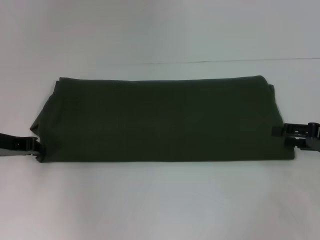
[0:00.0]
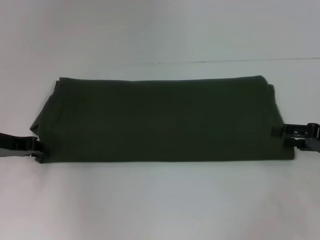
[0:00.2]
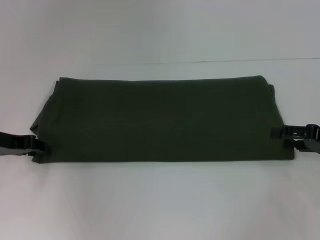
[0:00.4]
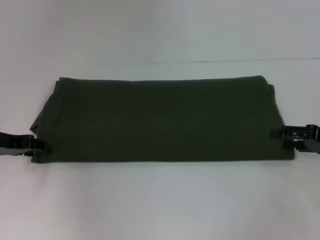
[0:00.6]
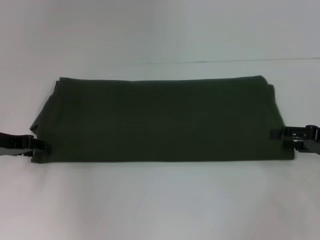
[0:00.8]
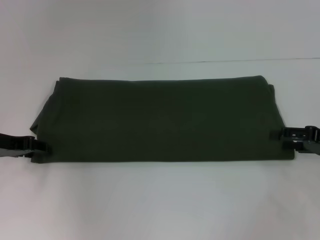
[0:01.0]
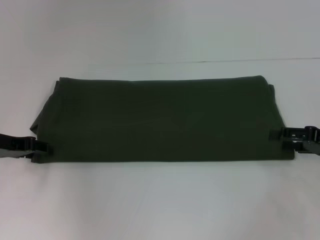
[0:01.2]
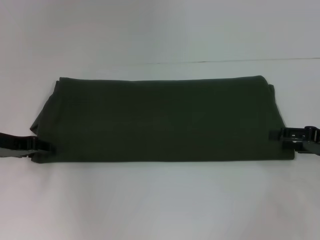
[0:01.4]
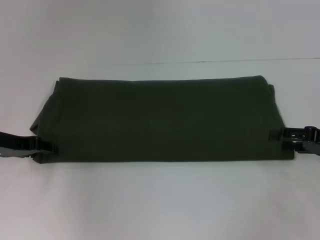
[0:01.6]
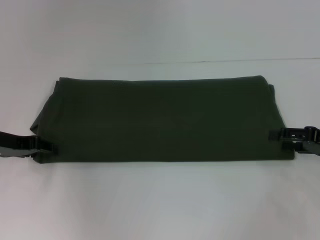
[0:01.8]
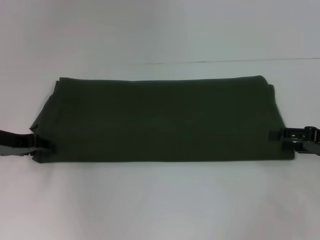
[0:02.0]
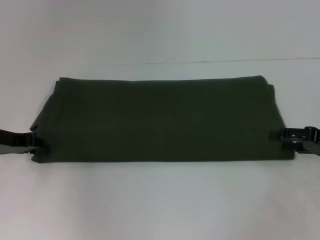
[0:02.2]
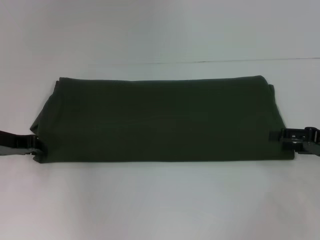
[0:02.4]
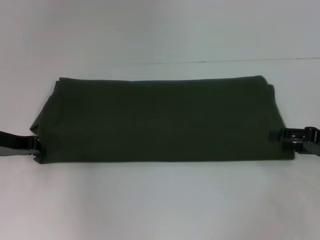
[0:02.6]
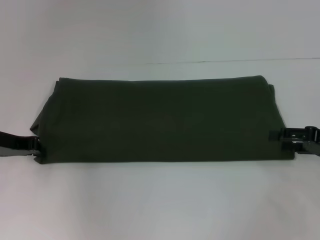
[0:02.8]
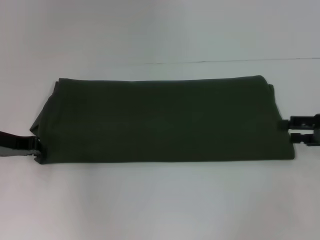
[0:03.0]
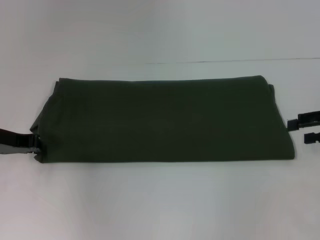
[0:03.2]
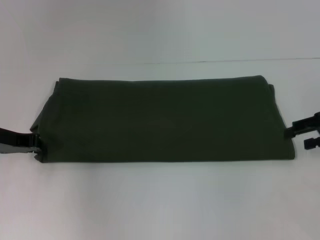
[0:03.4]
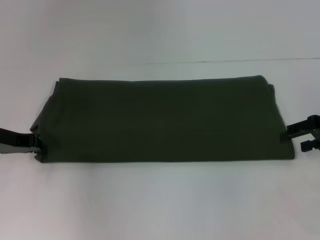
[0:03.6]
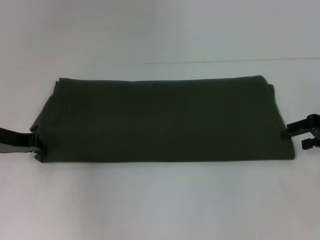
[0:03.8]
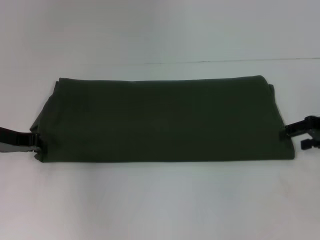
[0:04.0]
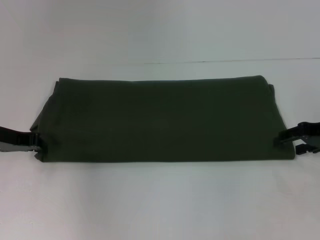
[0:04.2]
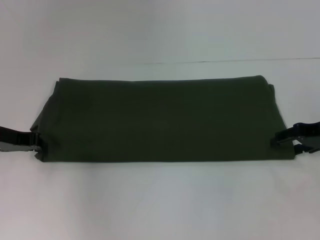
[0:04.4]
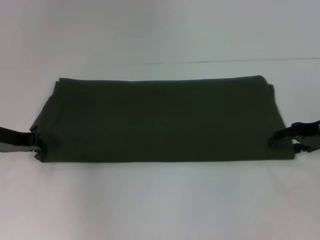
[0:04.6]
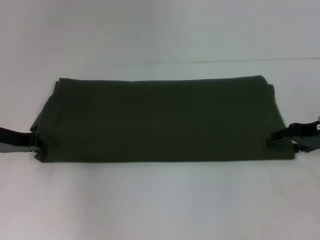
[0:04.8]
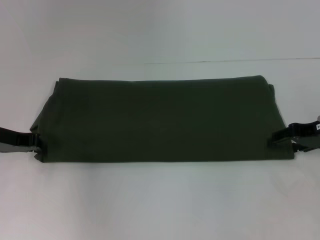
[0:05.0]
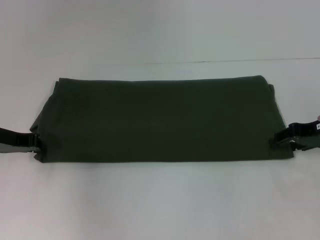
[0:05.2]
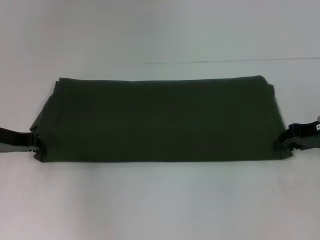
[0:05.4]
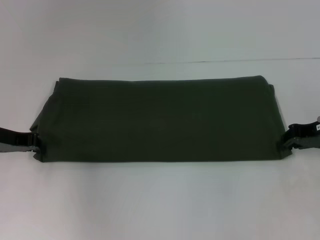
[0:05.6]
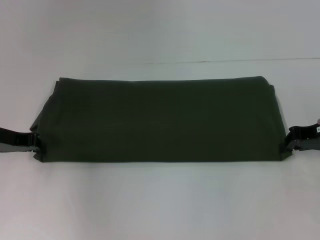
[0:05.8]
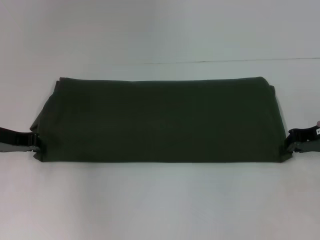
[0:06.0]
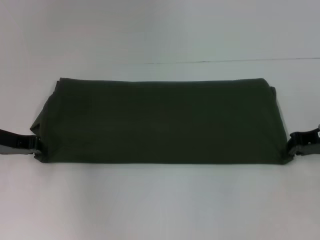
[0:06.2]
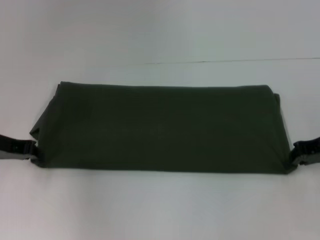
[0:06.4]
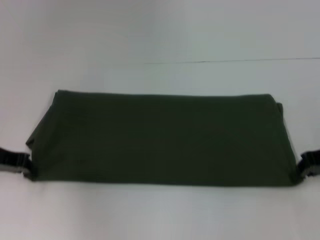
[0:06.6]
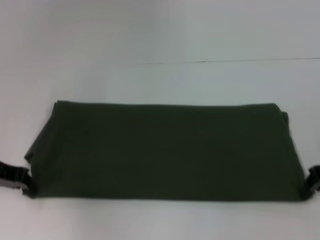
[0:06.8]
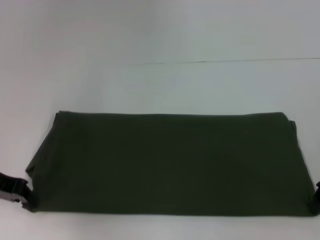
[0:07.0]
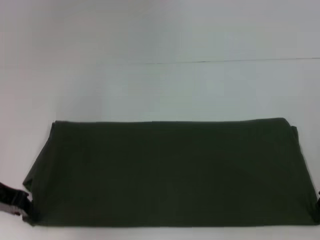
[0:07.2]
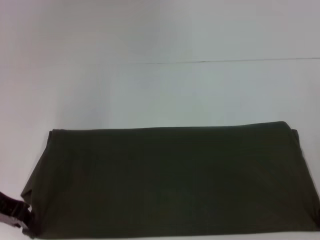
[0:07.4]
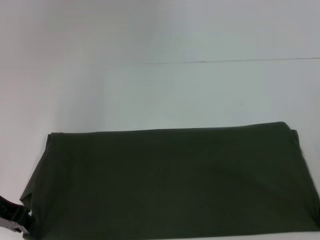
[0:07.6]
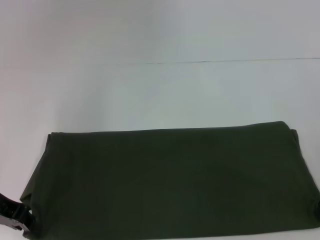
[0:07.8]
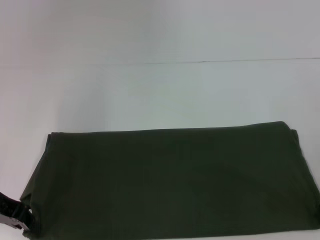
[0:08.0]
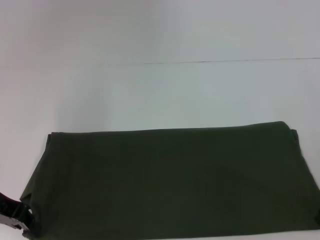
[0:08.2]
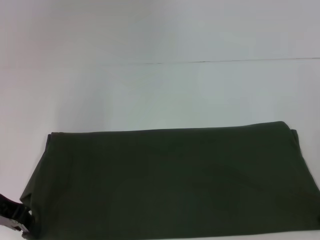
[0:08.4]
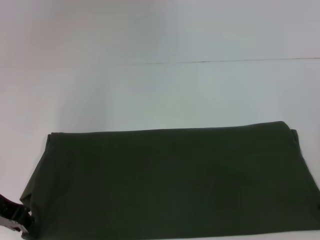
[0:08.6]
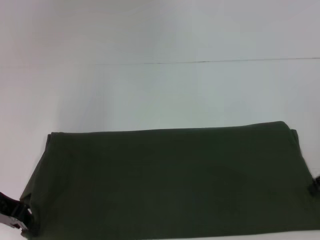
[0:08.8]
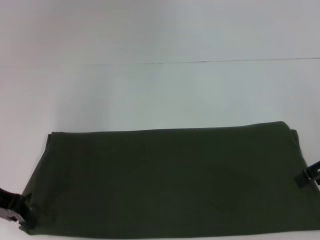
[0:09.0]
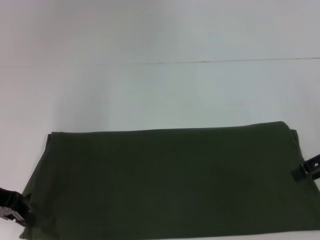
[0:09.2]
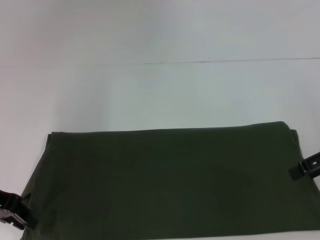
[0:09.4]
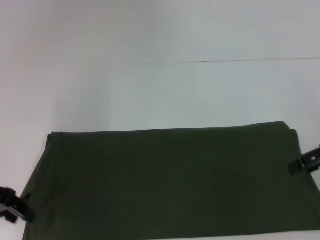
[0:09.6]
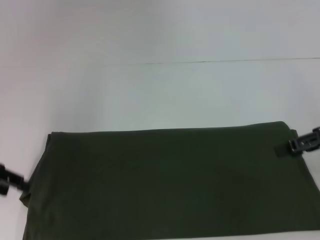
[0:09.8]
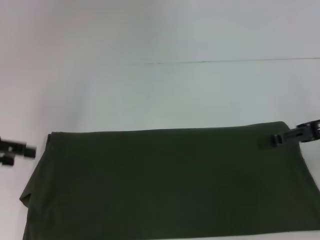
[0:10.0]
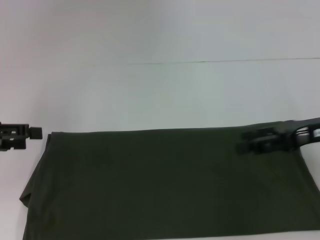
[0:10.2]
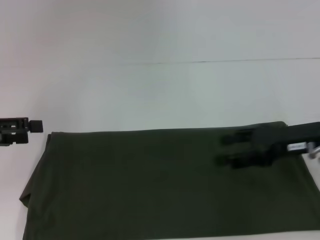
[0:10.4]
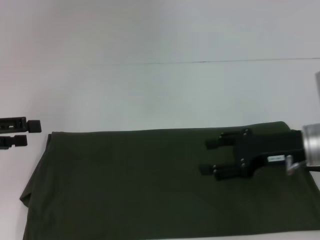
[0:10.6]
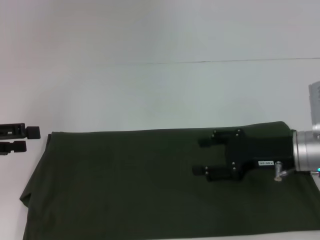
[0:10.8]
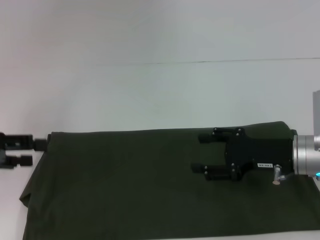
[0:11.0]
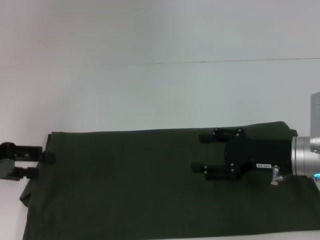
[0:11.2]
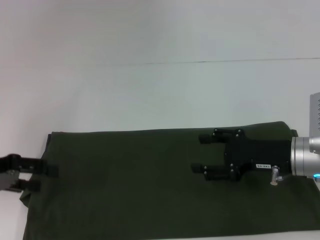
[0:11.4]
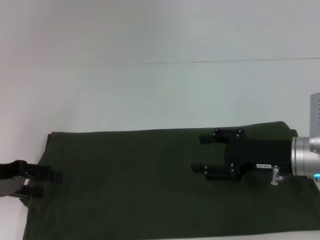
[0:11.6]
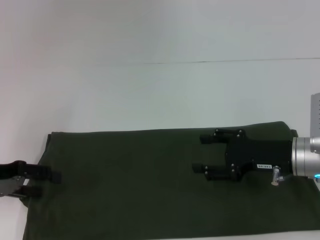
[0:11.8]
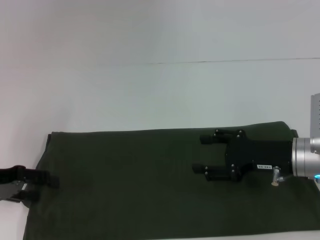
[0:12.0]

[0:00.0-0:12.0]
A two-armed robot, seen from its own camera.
0:03.0 to 0:04.4: The right gripper changes place by roughly 5 cm.
0:04.4 to 0:06.0: The right gripper closes up.
0:06.0 to 0:07.6: The left gripper heads backward, covering approximately 5 cm.
0:07.6 to 0:09.0: The right gripper moves upward, about 5 cm, and opens.
0:09.0 to 0:10.4: The grippers both shift to the left by roughly 5 cm. The left gripper opens its fingers.
0:10.4 to 0:12.0: The grippers both shift downward by some 5 cm.

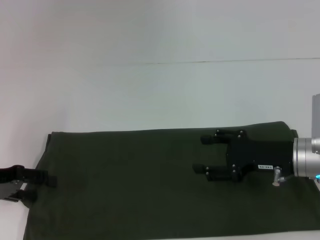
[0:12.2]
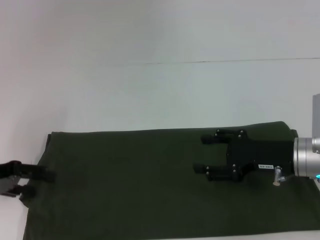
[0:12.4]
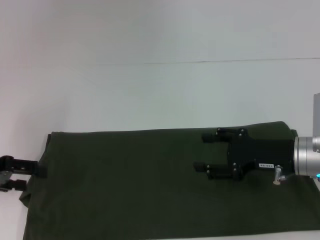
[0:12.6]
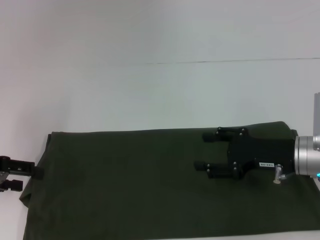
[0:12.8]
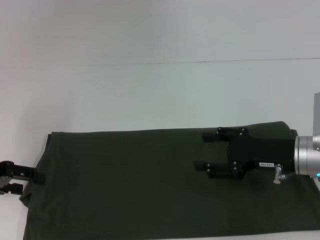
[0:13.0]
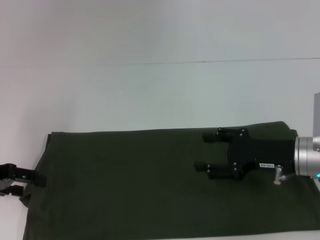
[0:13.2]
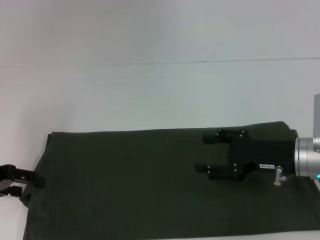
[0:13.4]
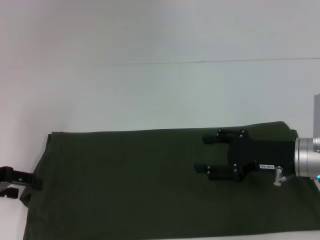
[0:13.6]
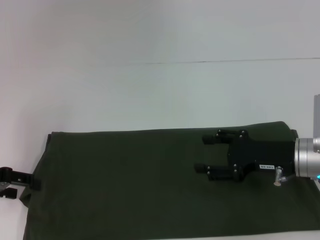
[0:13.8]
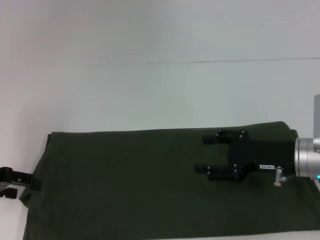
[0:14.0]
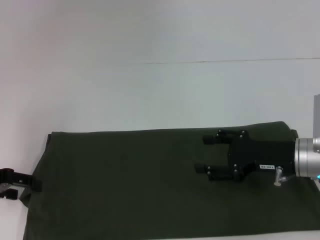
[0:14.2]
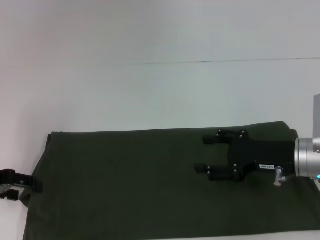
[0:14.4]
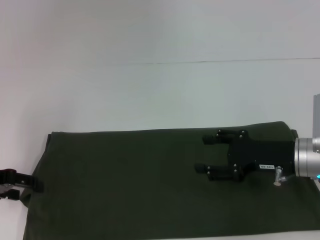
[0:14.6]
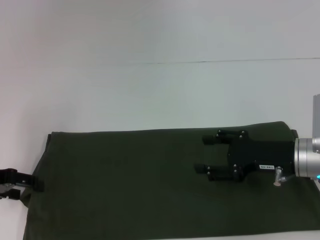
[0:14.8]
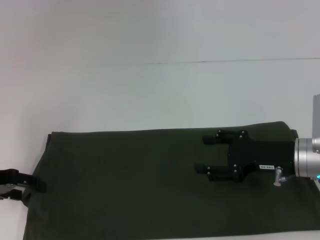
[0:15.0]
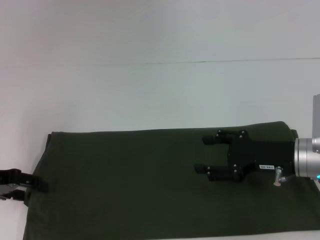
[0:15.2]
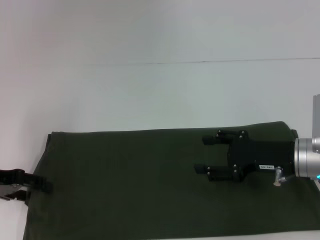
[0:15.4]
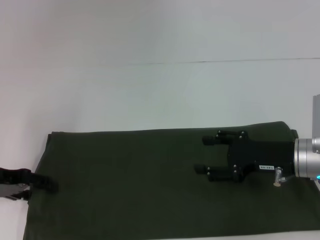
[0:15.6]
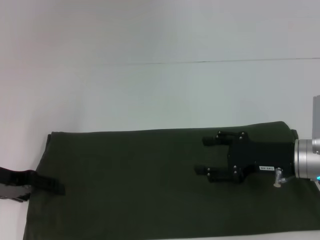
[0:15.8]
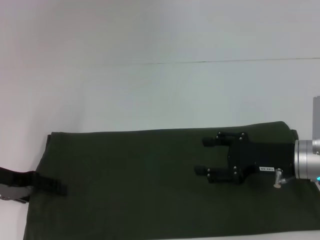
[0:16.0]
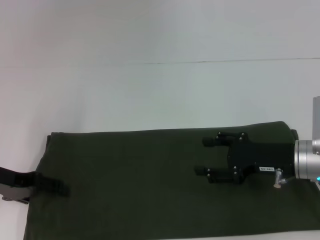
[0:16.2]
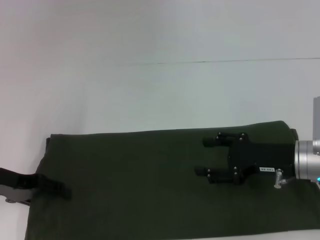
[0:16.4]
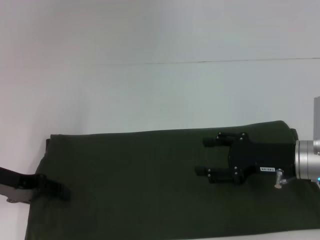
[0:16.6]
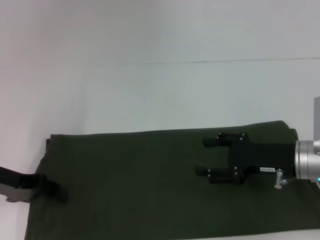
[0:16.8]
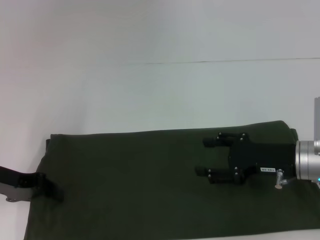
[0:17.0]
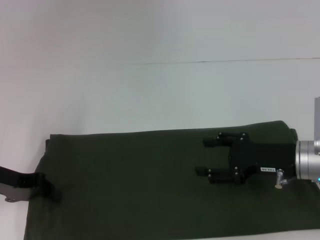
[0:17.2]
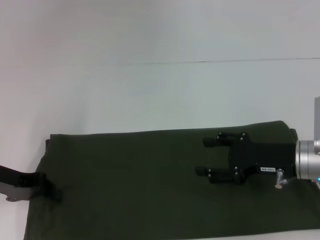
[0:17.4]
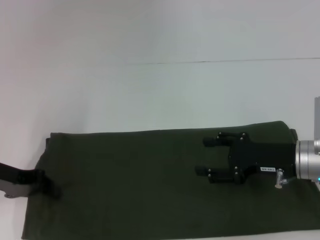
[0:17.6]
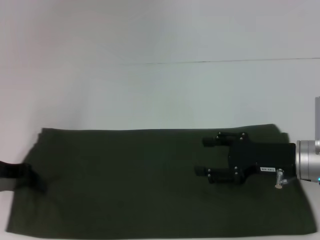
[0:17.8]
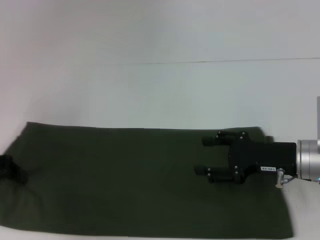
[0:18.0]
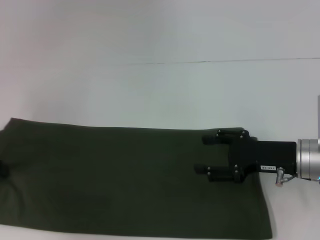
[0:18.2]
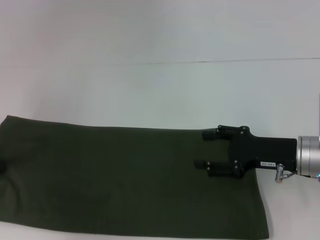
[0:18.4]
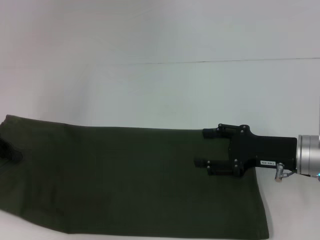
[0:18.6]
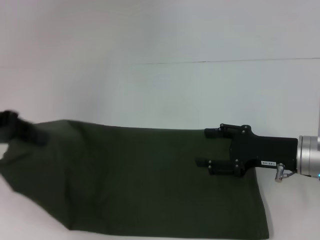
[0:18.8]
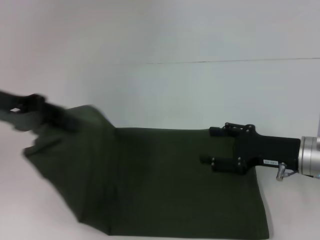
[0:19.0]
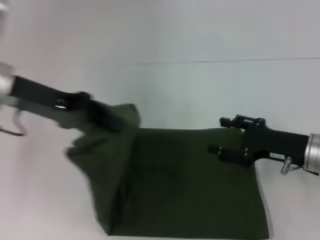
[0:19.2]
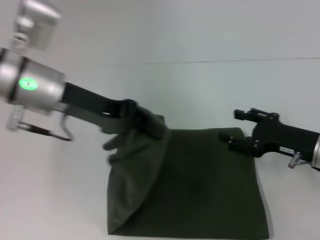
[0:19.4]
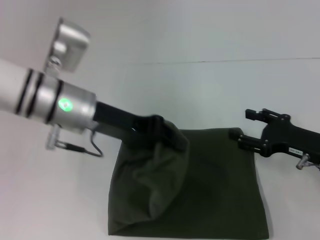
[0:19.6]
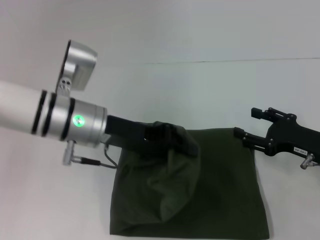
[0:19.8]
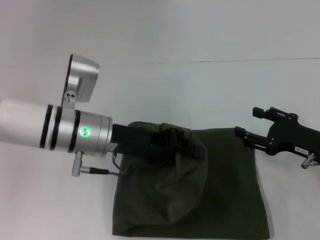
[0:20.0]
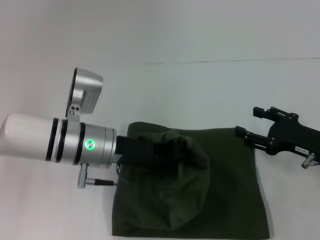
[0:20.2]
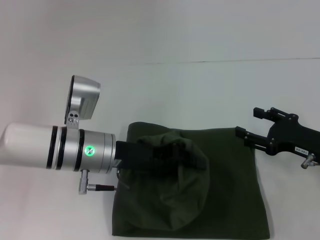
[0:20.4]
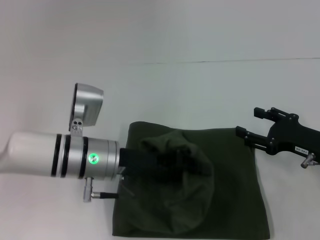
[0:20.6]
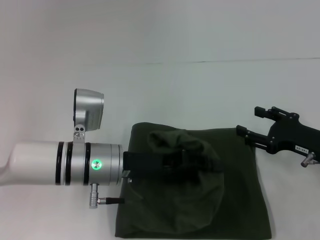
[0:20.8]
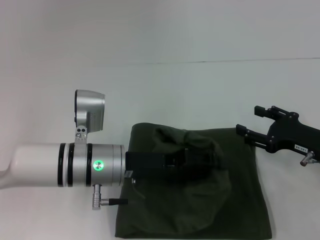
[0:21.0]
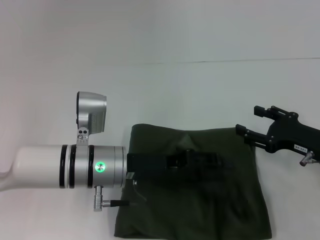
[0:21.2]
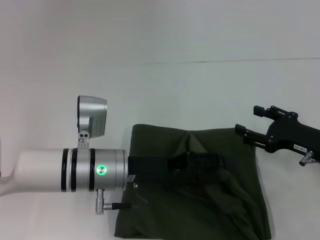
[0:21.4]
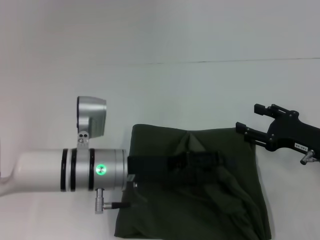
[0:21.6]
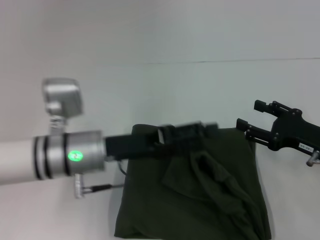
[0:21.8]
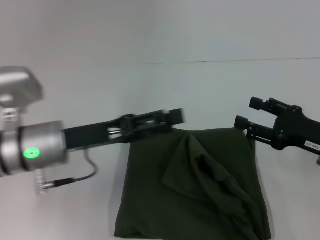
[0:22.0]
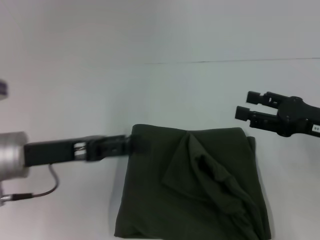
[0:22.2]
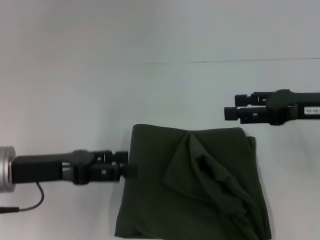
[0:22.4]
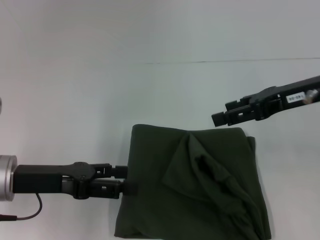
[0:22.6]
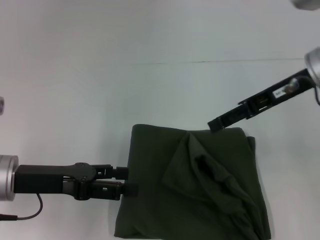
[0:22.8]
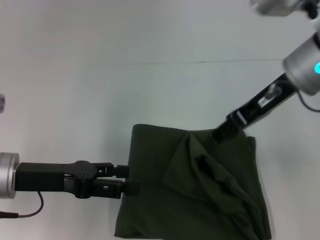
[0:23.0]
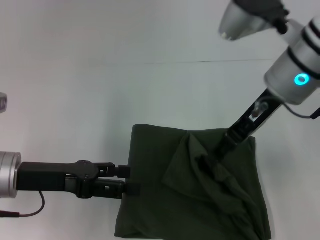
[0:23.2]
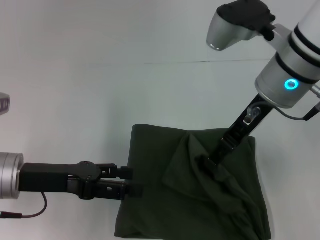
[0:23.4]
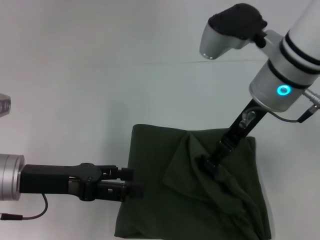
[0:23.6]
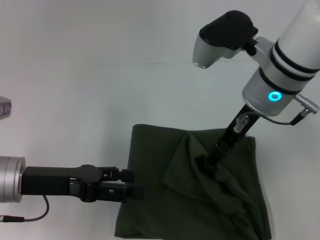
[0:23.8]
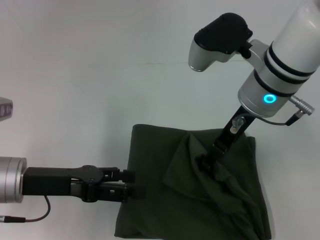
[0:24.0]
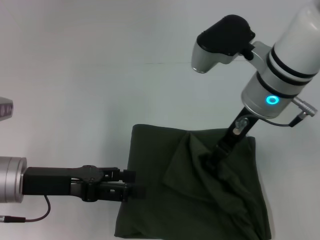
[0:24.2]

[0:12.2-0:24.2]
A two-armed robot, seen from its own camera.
Step, 0:12.2 to 0:21.2: Fold the clothes with your left hand.
0:12.2 to 0:13.8: The grippers stay close to where they were, moving slightly.
0:13.8 to 0:15.2: The two grippers keep their place.
0:15.2 to 0:16.6: The grippers stay close to where they were, moving slightly.
0:16.6 to 0:18.2: The left gripper heads to the left, covering roughly 5 cm, and closes up.
0:18.2 to 0:19.8: The left gripper goes about 25 cm to the right, while the right gripper goes roughly 5 cm to the right.
0:19.8 to 0:21.2: The left gripper shifts approximately 5 cm downward, and opens.
0:21.2 to 0:22.6: The right gripper shifts approximately 15 cm upward. Meanwhile the left gripper travels to the left by about 15 cm, and opens up.
0:22.6 to 0:24.2: The right gripper goes roughly 10 cm to the left.
